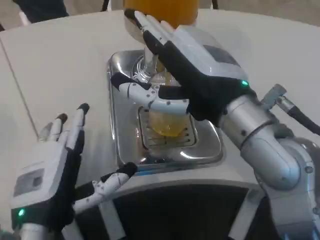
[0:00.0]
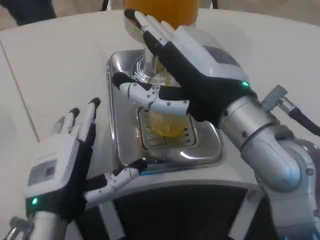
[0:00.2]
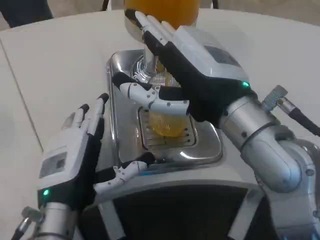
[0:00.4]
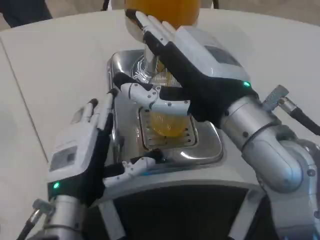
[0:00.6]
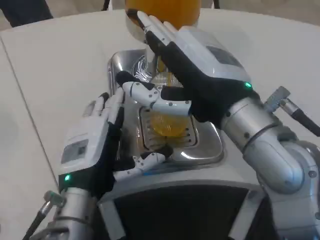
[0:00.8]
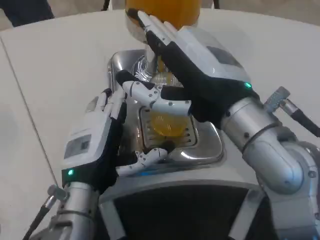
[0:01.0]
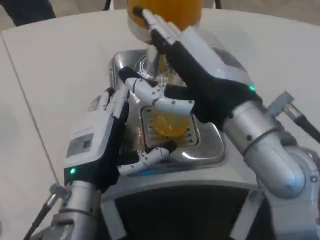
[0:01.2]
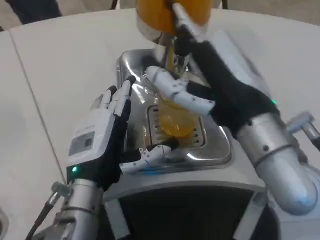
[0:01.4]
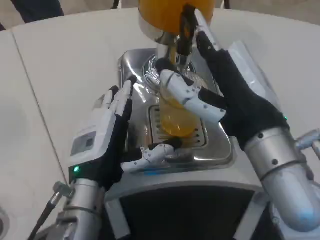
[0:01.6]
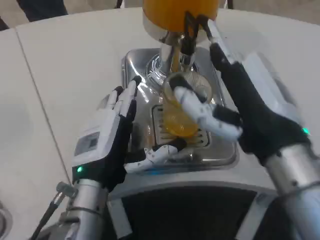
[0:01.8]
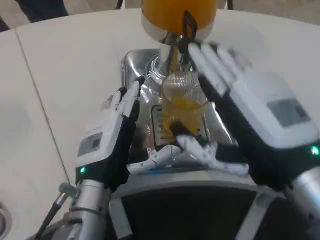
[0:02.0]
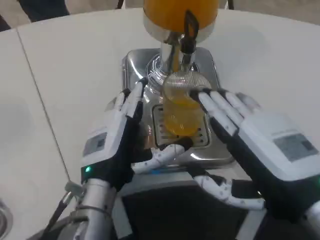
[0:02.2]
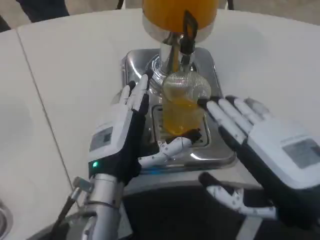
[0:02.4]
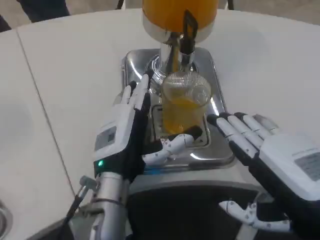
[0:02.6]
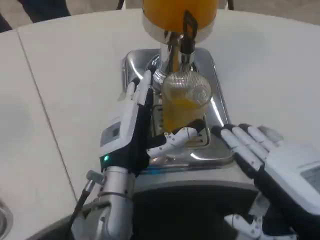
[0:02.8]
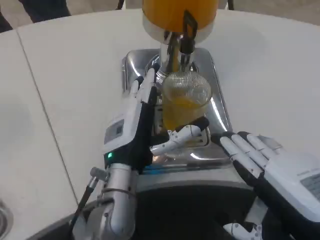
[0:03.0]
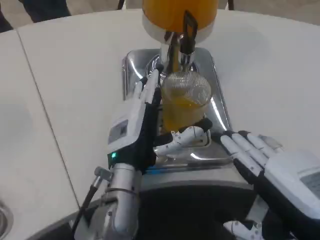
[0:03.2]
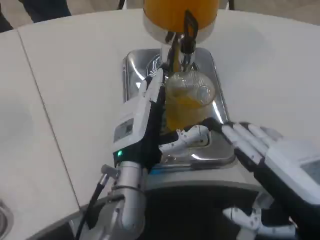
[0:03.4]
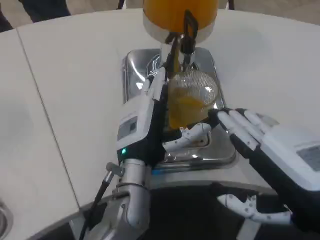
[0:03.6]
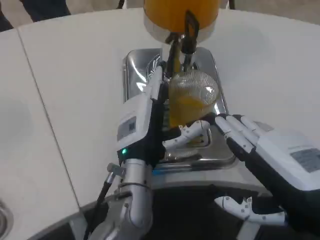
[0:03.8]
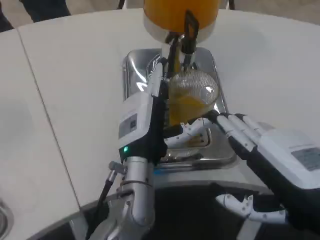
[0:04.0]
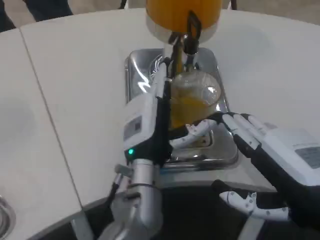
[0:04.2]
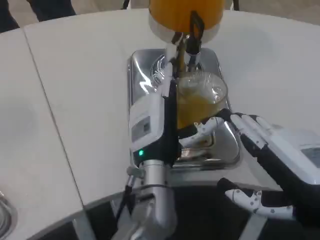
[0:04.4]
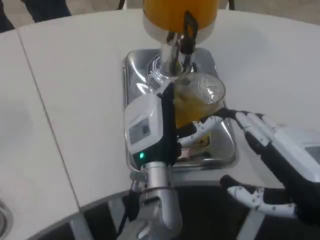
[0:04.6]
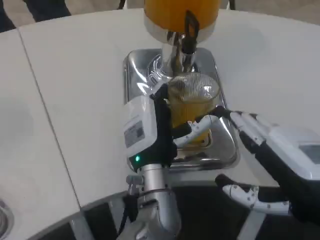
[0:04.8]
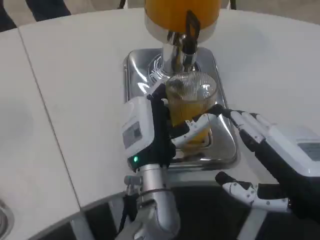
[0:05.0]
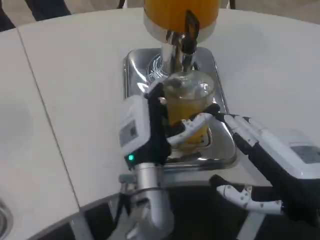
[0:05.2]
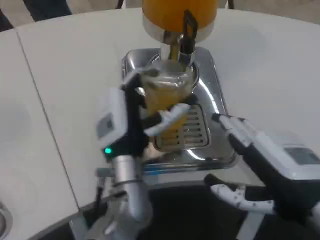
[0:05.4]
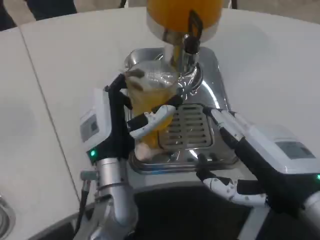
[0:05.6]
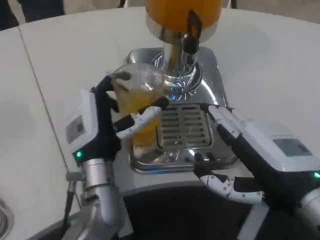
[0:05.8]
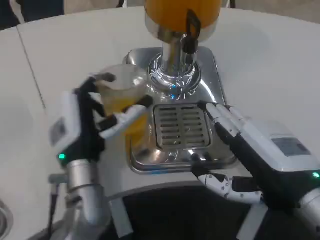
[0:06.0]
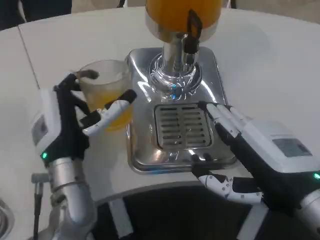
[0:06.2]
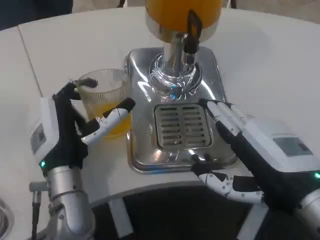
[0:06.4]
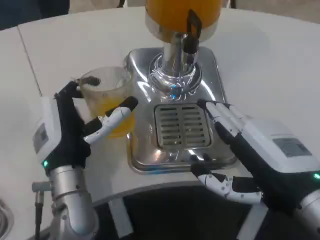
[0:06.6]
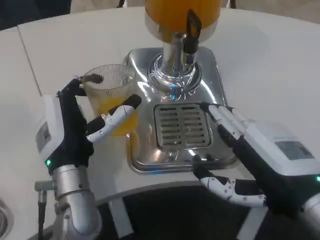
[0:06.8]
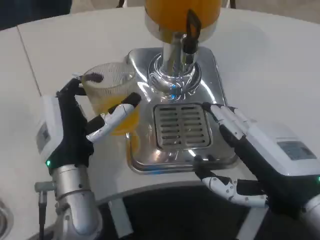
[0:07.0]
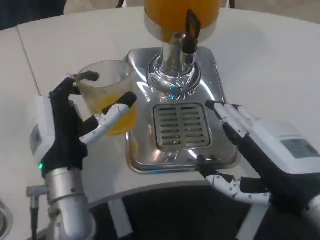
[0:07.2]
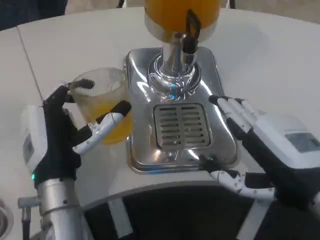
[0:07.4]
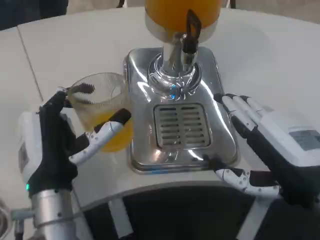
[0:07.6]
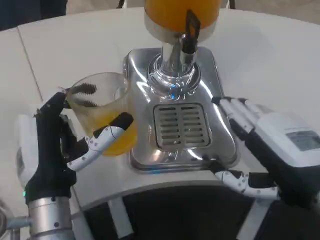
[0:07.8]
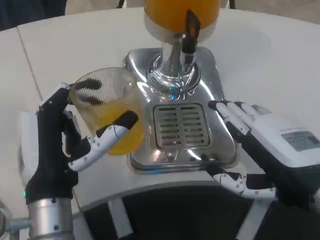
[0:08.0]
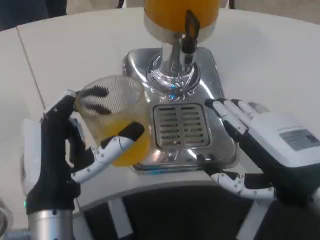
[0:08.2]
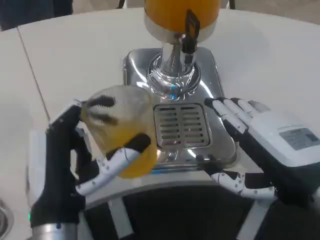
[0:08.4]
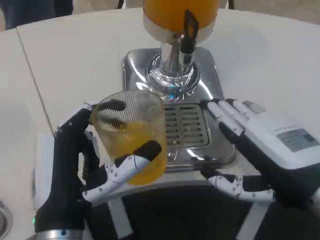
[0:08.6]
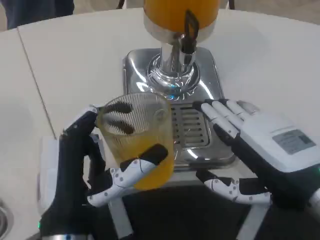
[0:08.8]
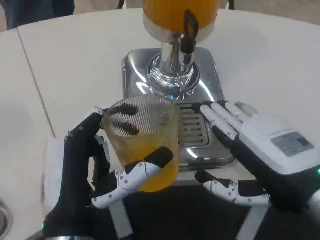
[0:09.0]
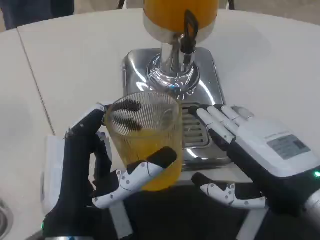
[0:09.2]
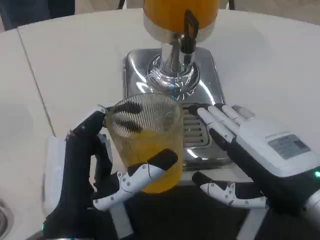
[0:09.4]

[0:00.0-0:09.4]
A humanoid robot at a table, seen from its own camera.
Task of the whole recording: Grasp the cup under the faucet to collect the drink, then remove the cup.
0.0 to 1.6 s: The left hand shifts about 5 cm forward.
1.6 to 3.2 s: The left hand moves to the right, about 5 cm. The right hand goes some 10 cm to the right, backward and downward.
3.2 to 4.8 s: The left hand heads to the right, covering approximately 5 cm.
4.8 to 6.2 s: The left hand moves to the left, approximately 10 cm.
6.2 to 7.8 s: The left hand travels backward by approximately 5 cm.
7.8 to 9.4 s: The left hand goes about 5 cm backward.

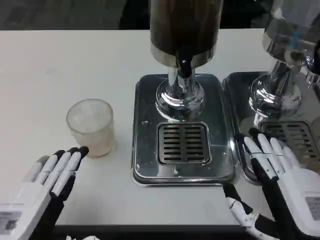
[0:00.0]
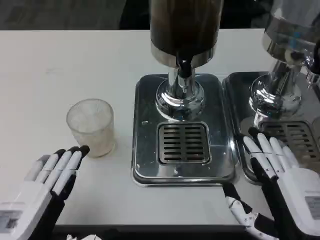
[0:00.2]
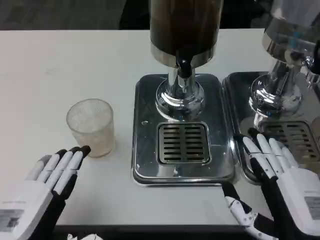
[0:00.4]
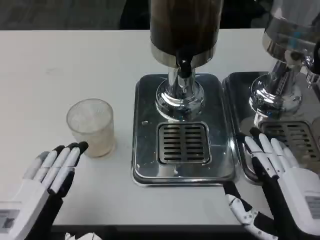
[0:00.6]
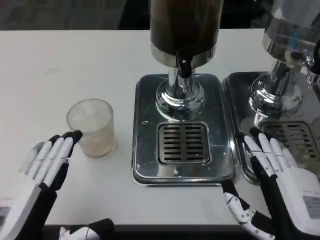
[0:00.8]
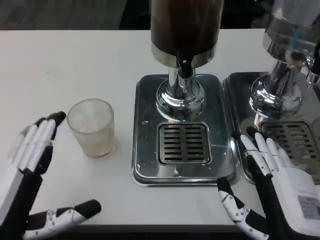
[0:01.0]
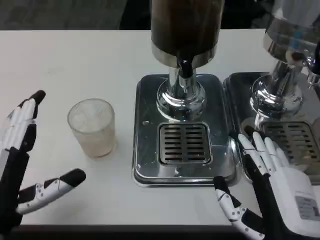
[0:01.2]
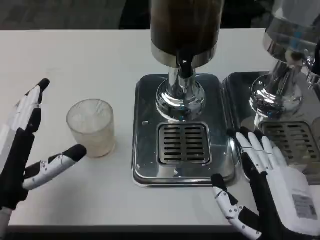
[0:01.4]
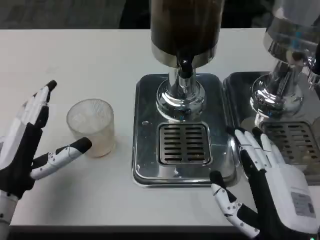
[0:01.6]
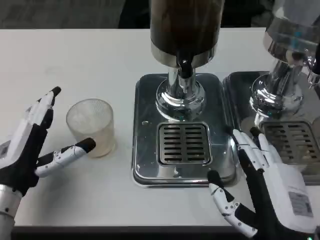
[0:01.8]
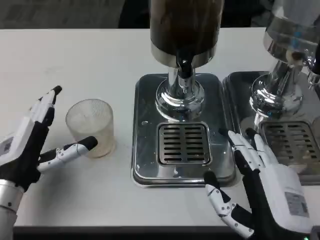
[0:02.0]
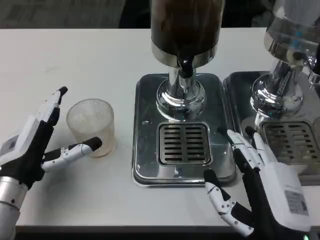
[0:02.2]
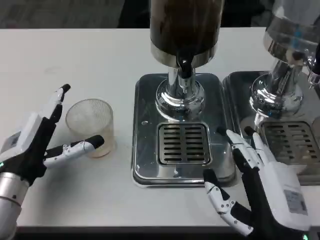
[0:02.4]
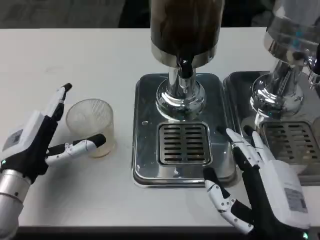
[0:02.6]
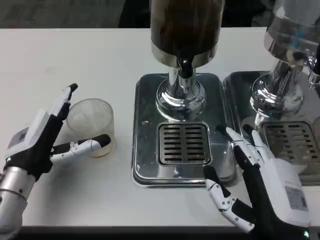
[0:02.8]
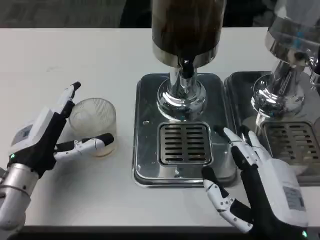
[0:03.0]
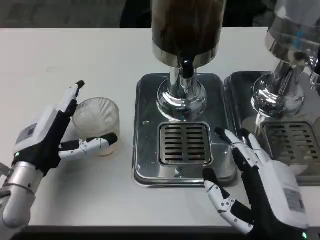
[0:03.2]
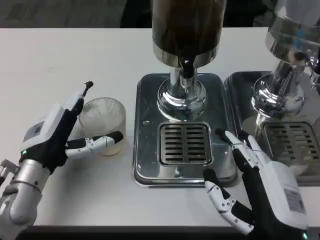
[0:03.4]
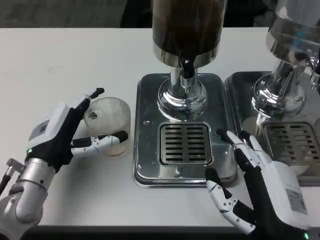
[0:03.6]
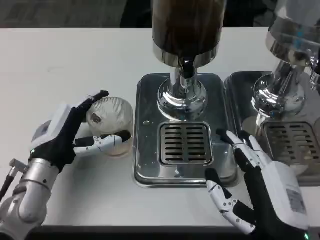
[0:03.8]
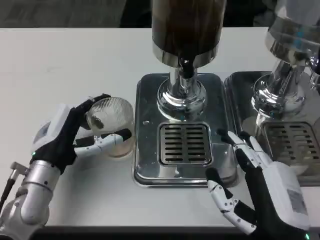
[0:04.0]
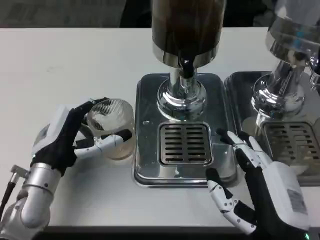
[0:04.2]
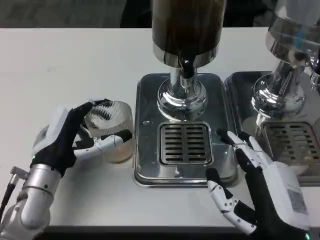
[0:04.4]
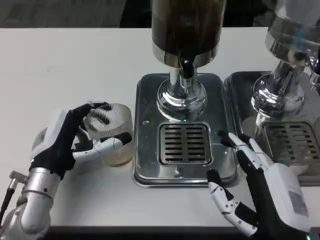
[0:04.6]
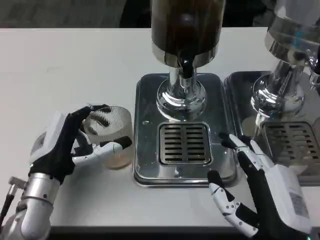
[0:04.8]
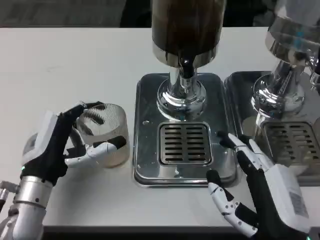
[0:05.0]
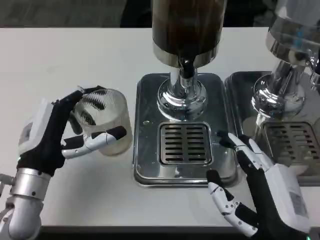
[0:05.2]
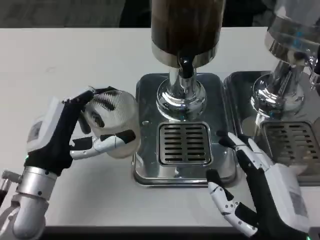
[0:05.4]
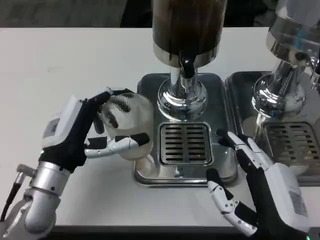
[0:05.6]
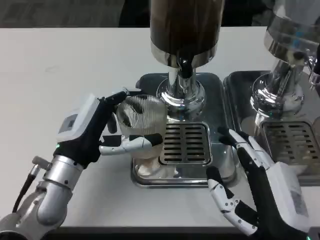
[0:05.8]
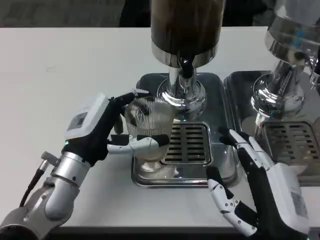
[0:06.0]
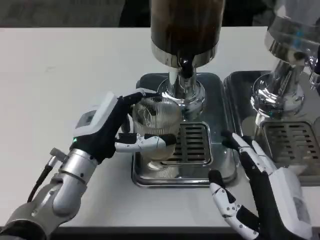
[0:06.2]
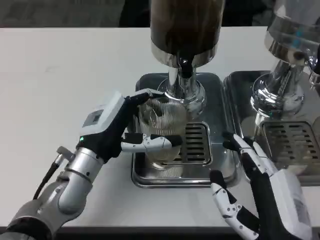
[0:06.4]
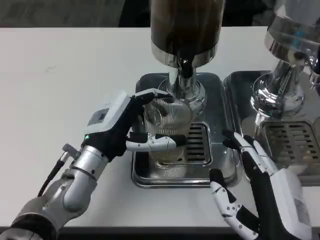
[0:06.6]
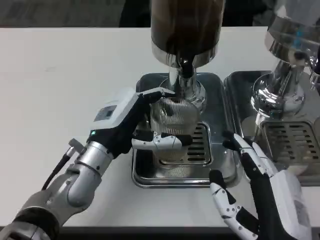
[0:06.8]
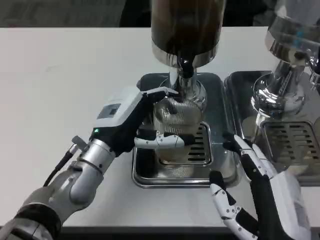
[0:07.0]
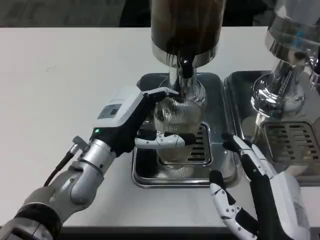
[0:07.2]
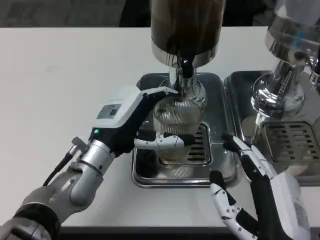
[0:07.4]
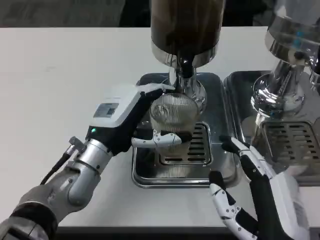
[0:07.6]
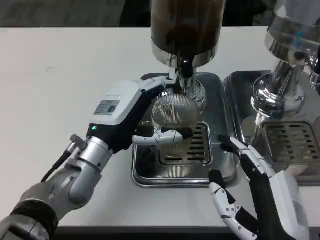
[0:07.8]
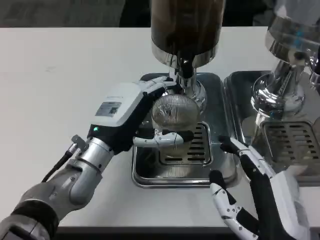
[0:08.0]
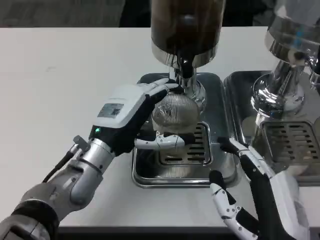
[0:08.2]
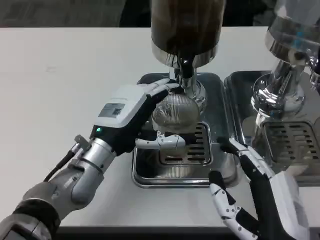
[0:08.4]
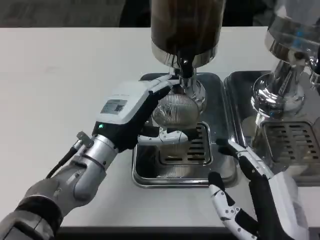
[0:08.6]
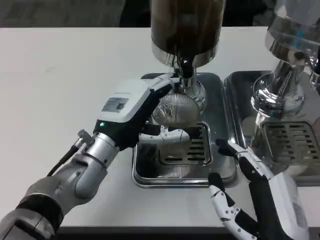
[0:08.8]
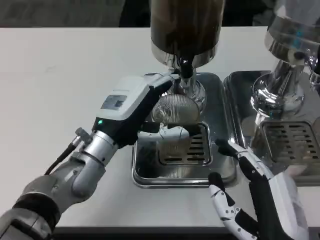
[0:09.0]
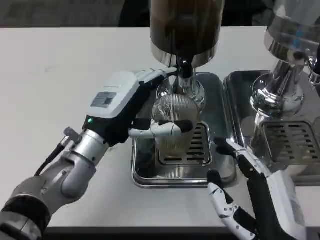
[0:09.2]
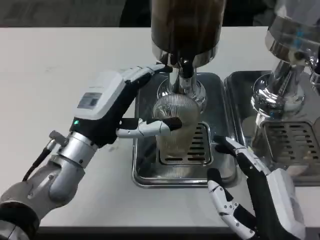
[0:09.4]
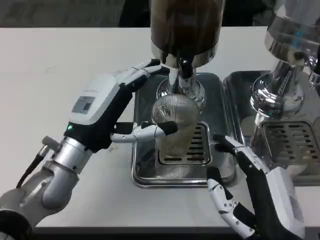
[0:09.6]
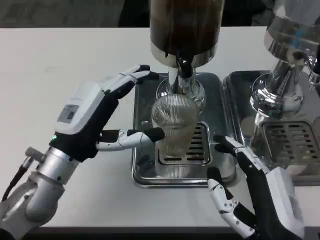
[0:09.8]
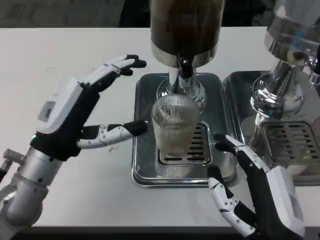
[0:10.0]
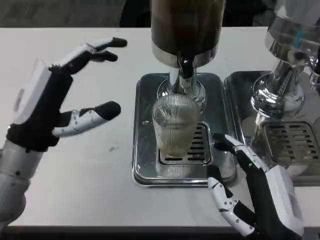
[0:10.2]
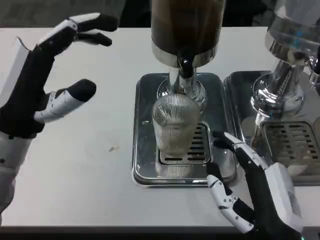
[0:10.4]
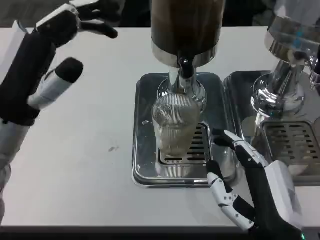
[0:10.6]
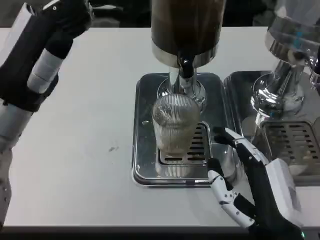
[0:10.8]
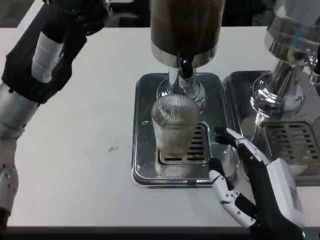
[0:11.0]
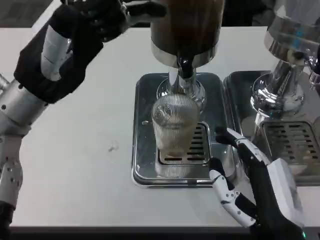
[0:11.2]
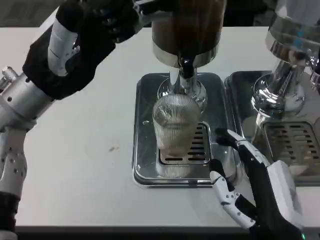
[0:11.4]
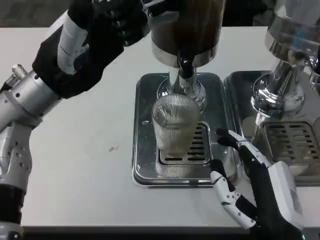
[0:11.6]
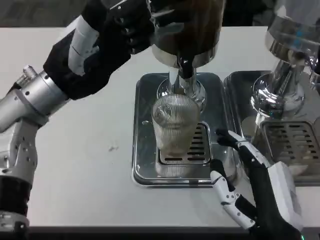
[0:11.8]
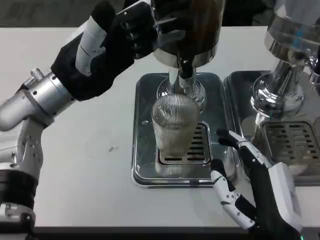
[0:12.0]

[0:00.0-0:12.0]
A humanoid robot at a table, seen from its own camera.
Task of the whole recording: Grasp the cup under the faucet to collect the drink, then remove the cup.
0.0 to 1.6 s: The left hand moves forward, some 10 cm.
3.0 to 4.4 s: The hands stay close to where they were, moving slightly.
7.6 to 9.0 s: The hands move only a little.
9.0 to 10.4 s: The left hand shifts about 10 cm to the left and upward.
10.4 to 12.0 s: The left hand shifts roughly 5 cm forward.

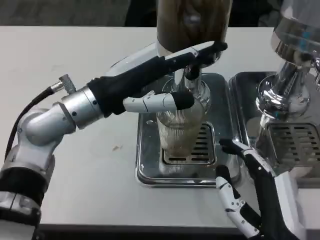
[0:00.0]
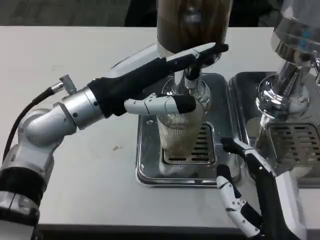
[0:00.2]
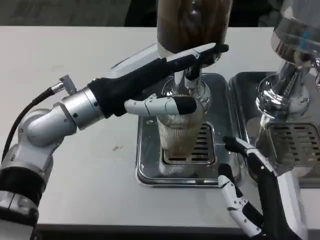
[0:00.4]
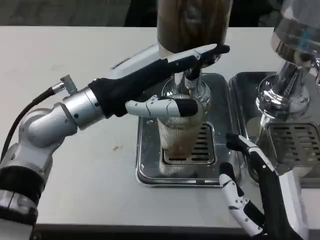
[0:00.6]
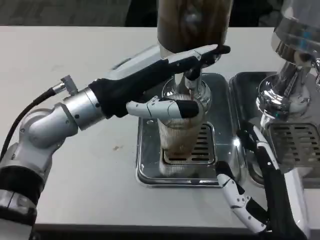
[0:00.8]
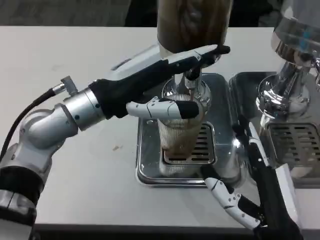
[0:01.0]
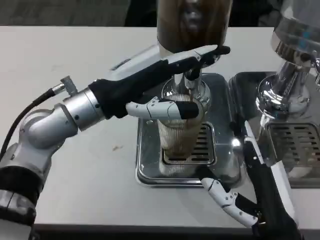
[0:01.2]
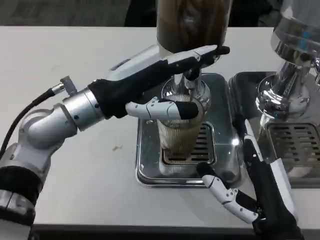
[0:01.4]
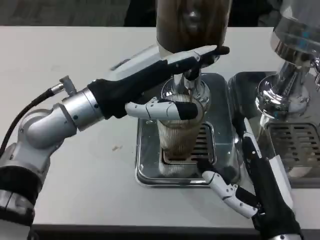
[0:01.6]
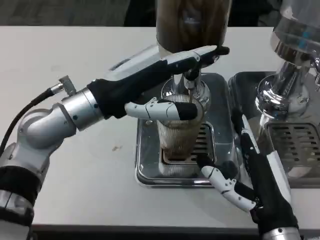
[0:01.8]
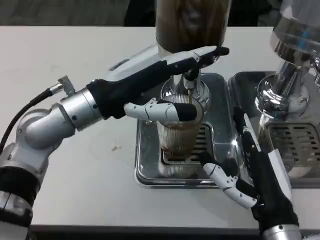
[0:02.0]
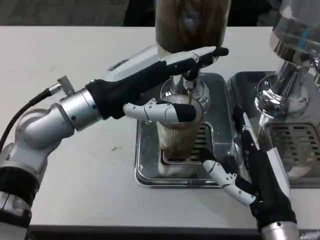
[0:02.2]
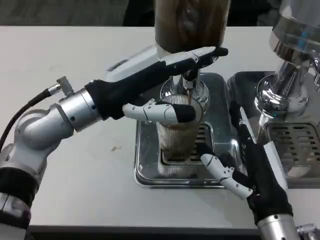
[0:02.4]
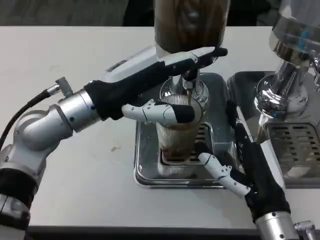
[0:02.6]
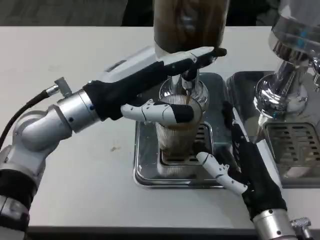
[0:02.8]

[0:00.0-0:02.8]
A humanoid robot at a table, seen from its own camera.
Task of the whole recording: Grasp the cup under the faucet to collect the drink, then remove the cup.
0.0 to 1.4 s: The hands move only a little.
